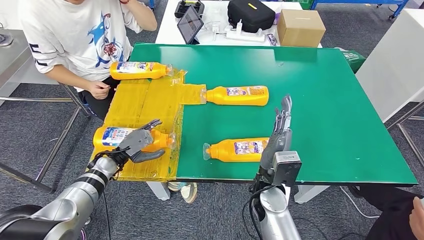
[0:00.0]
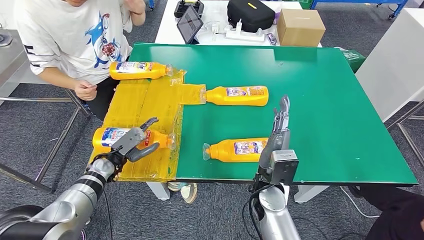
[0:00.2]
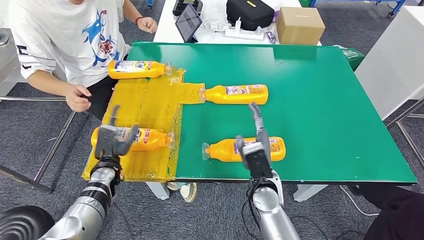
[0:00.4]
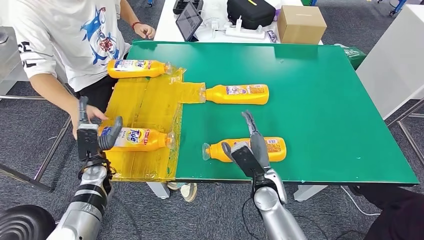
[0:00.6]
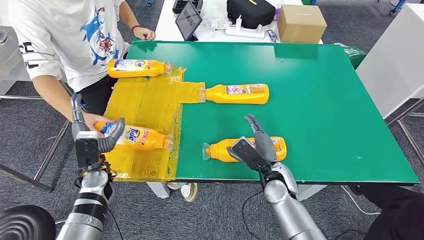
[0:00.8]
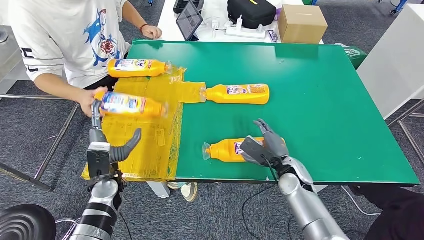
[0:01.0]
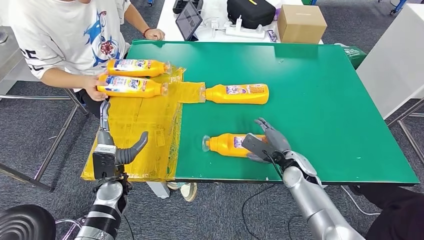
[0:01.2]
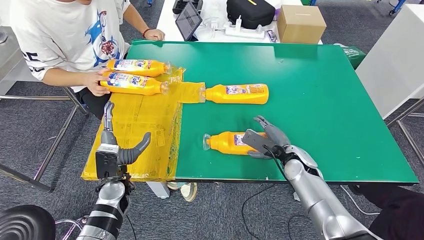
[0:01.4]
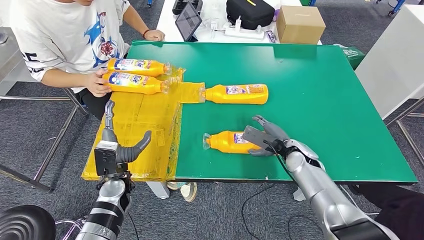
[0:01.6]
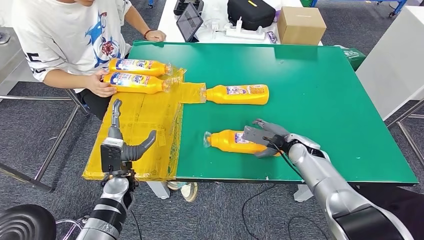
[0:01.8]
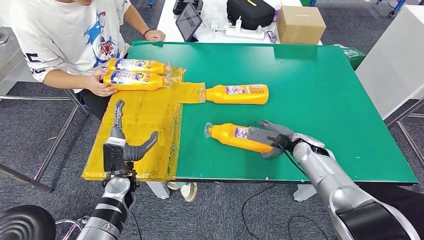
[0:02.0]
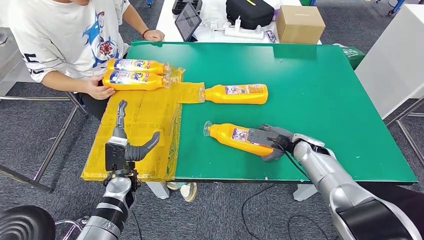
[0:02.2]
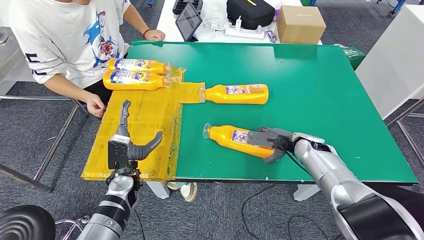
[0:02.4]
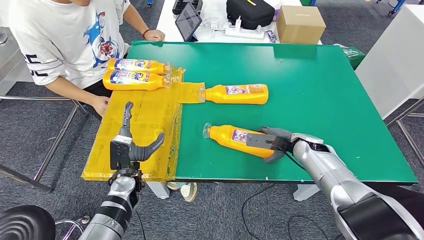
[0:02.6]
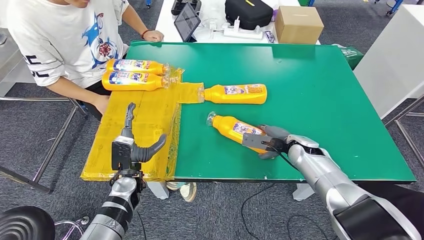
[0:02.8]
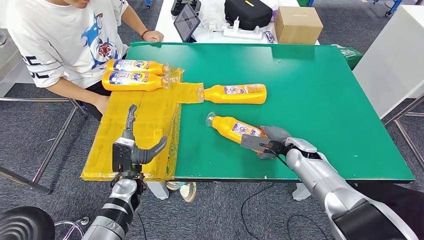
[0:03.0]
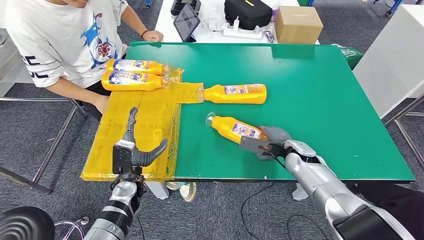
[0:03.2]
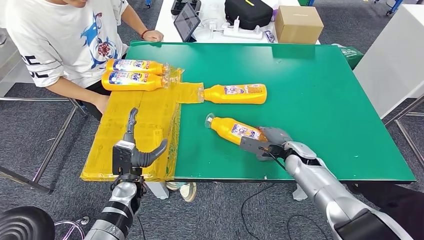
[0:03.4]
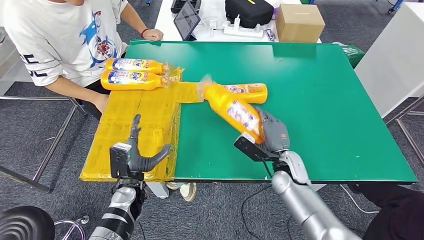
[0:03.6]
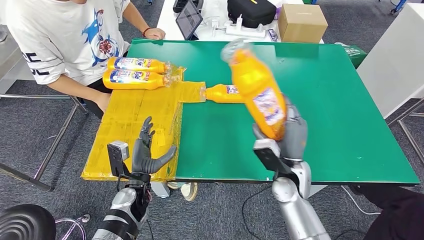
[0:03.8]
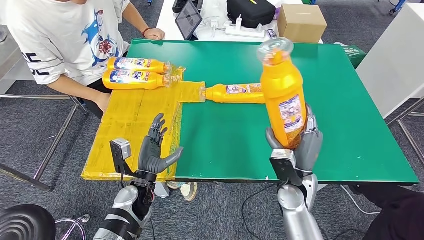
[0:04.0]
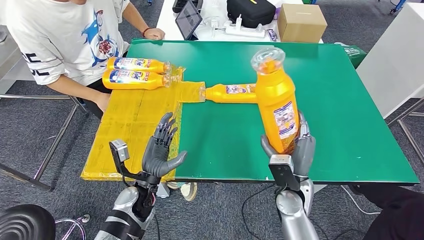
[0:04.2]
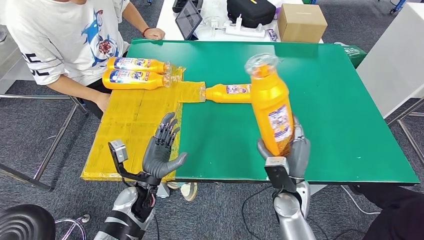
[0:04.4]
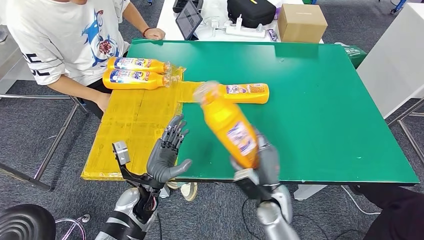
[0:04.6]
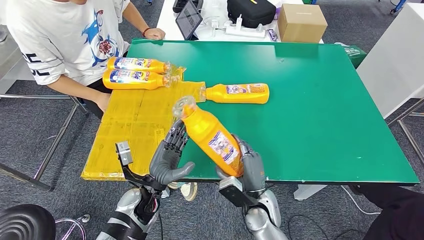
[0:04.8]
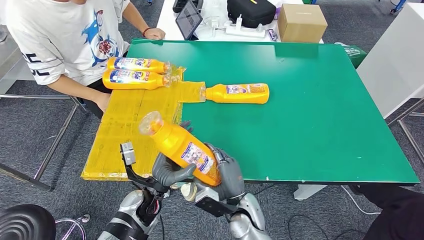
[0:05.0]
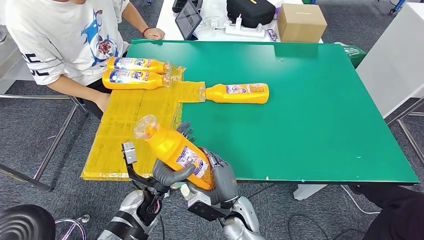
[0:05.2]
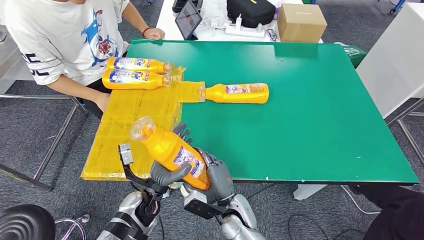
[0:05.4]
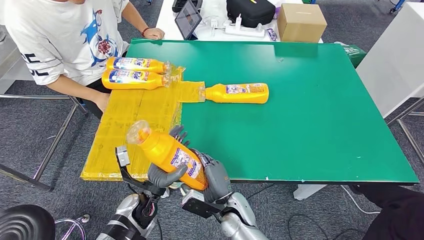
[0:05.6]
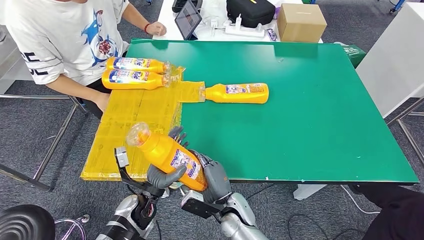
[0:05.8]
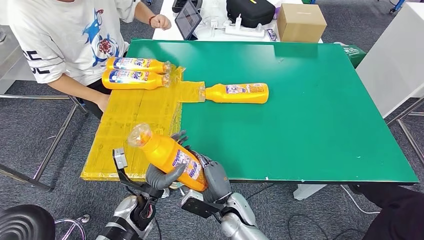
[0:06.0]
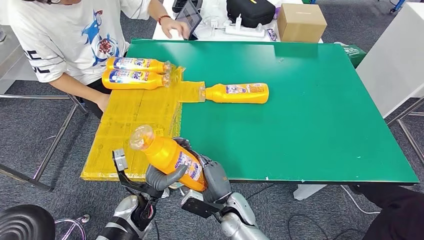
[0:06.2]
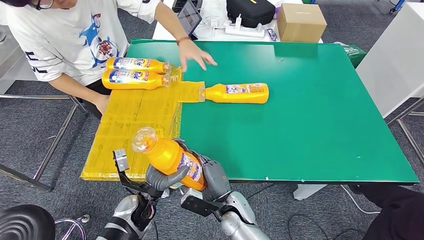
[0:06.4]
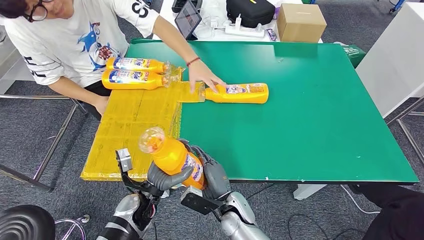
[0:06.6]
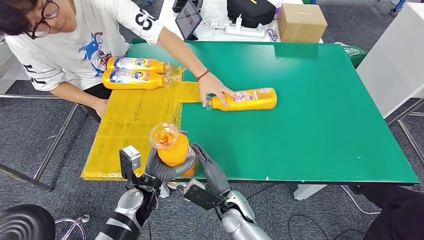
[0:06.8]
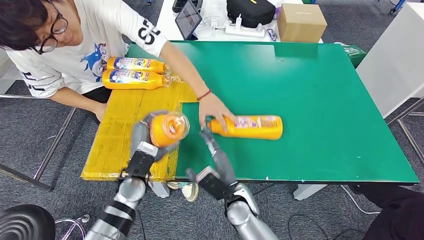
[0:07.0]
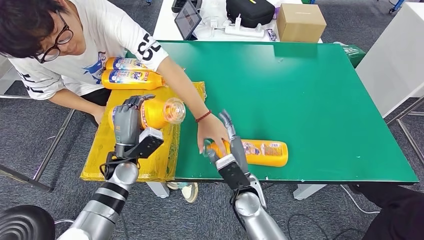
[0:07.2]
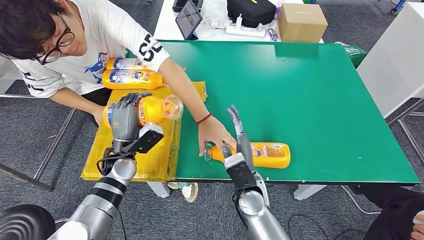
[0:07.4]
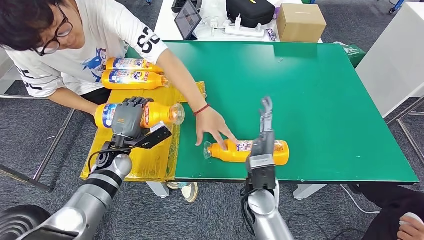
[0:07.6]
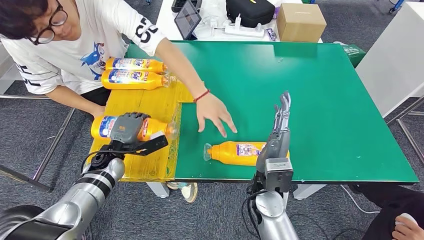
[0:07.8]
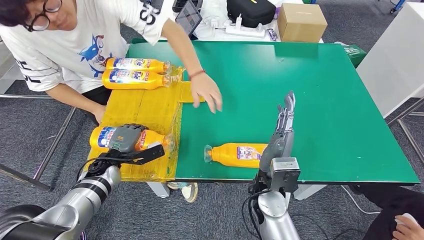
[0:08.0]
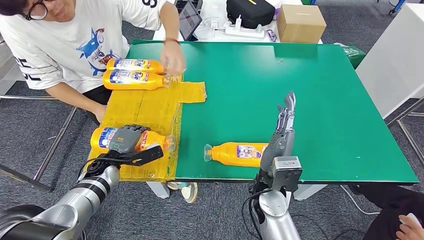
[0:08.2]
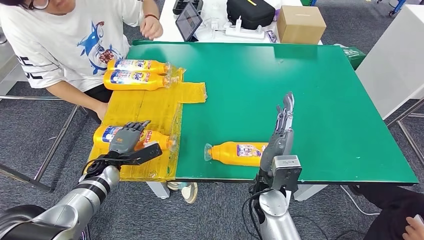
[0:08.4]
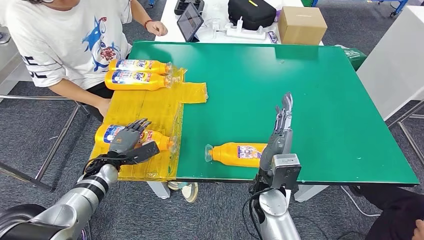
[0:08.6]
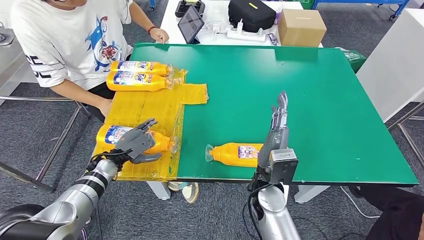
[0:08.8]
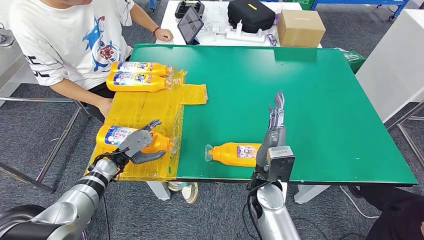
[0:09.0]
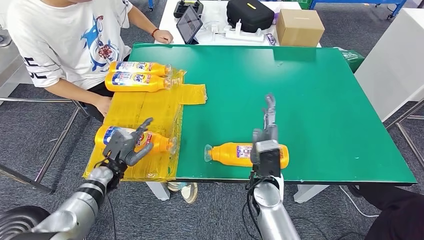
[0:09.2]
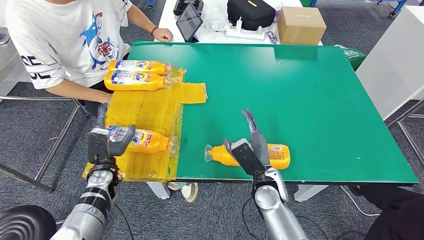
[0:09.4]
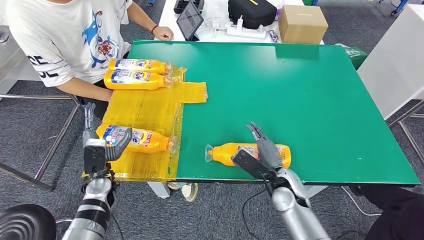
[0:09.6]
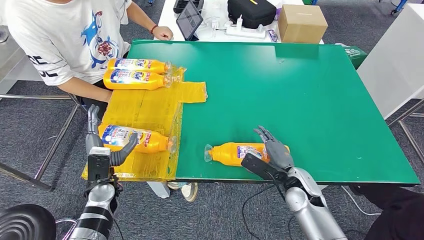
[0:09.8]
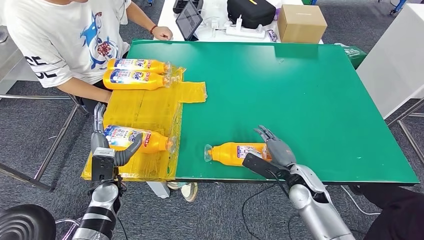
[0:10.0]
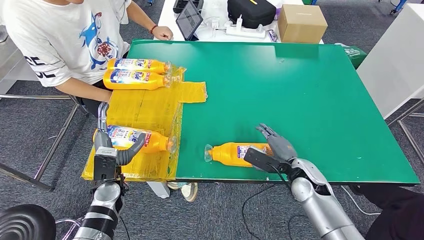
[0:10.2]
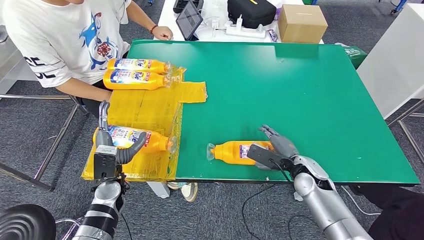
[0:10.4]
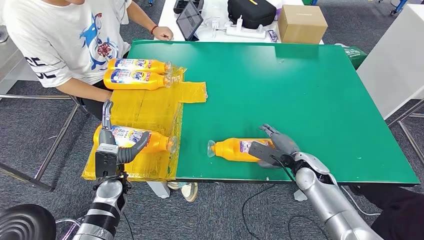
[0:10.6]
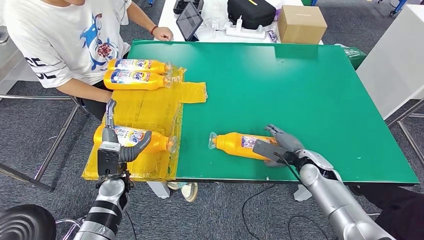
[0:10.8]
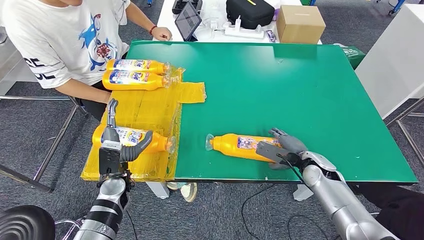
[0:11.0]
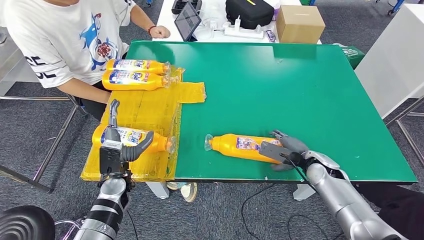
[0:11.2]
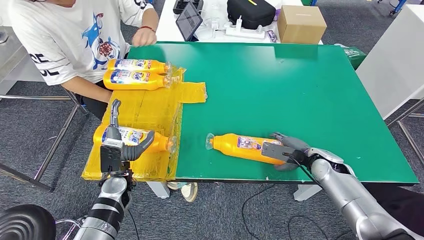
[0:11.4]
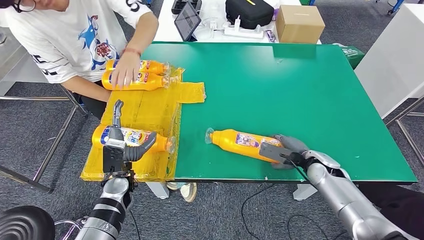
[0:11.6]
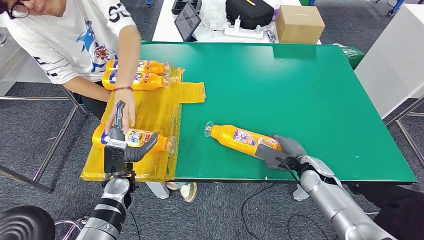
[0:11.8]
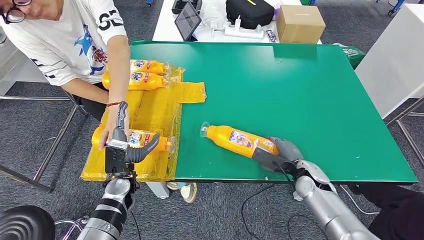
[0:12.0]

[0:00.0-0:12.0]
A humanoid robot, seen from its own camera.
Step, 0:00.4 to 0:05.8: Pick up the bottle from the table.
Step, 0:06.2 to 0:09.8: Flip the bottle to face forward.
0:04.4 to 0:06.0: The right hand travels to the left and downward by approximately 15 cm.

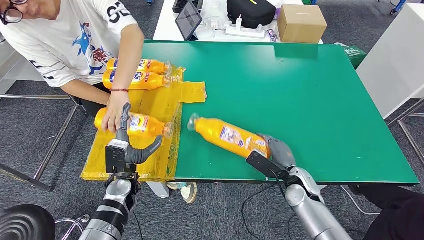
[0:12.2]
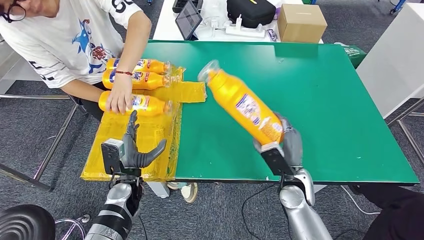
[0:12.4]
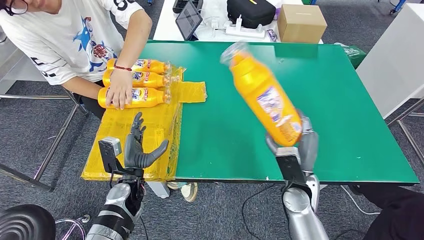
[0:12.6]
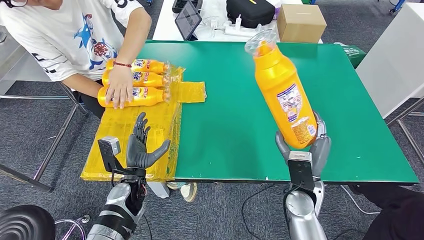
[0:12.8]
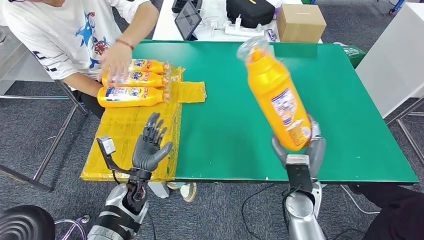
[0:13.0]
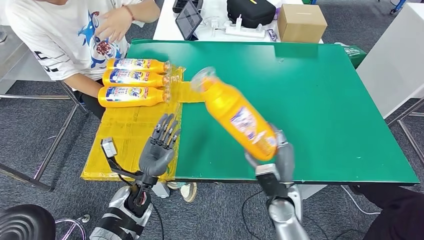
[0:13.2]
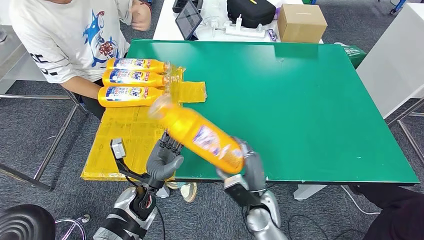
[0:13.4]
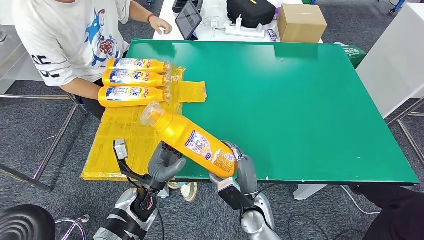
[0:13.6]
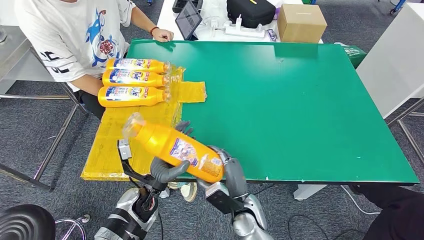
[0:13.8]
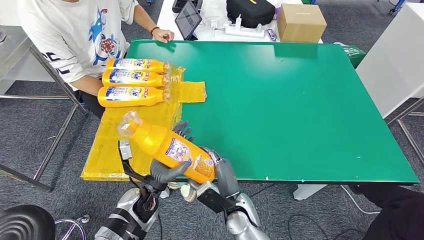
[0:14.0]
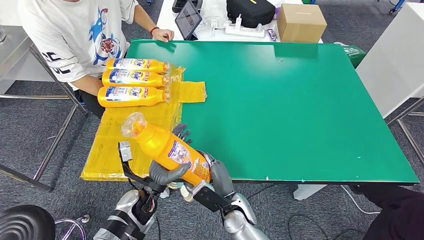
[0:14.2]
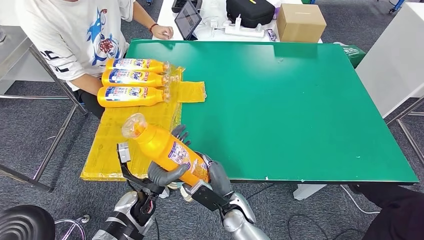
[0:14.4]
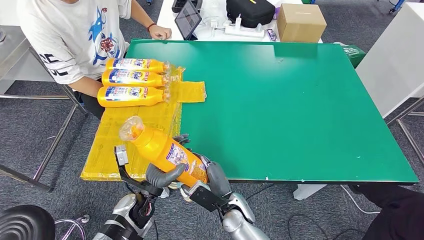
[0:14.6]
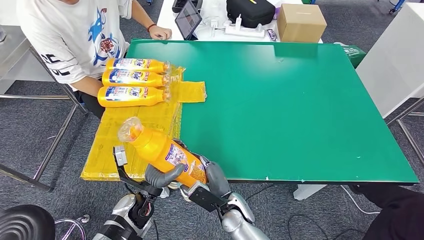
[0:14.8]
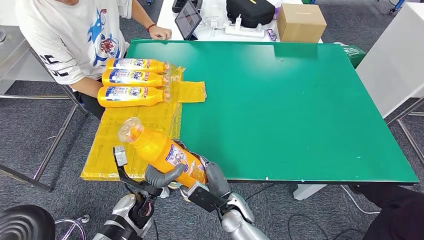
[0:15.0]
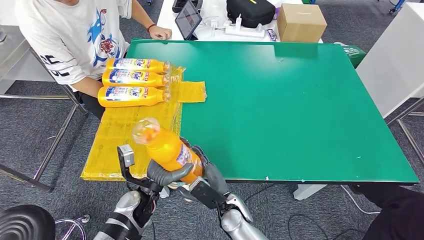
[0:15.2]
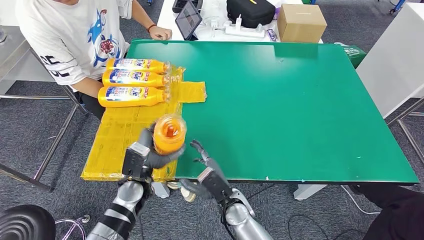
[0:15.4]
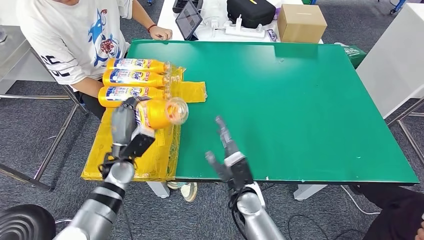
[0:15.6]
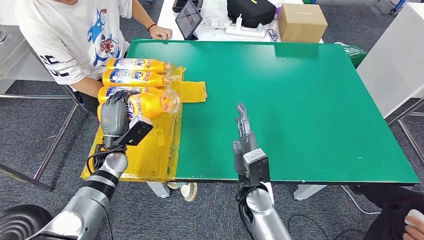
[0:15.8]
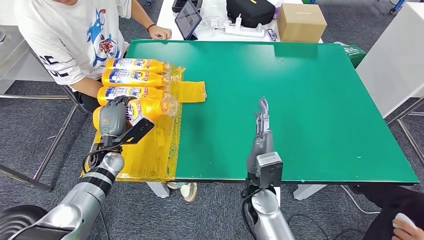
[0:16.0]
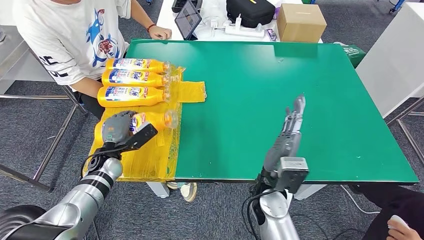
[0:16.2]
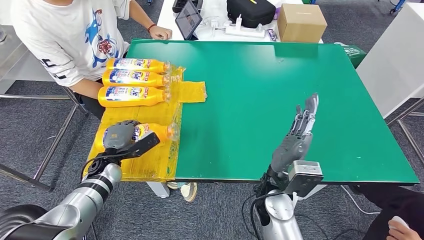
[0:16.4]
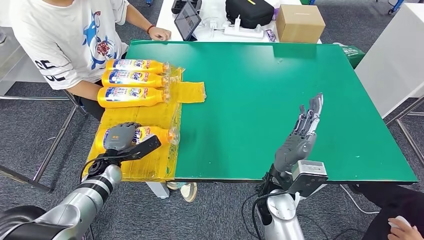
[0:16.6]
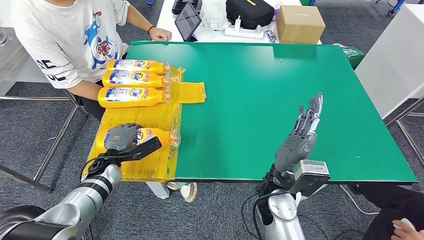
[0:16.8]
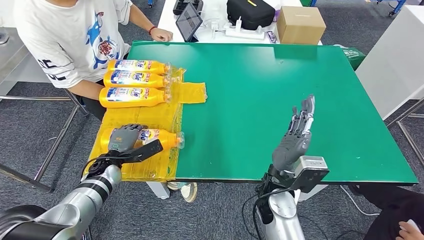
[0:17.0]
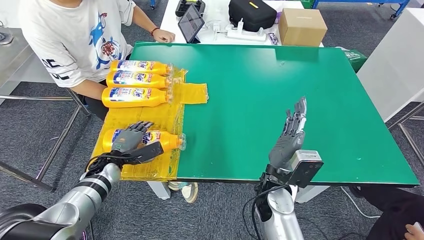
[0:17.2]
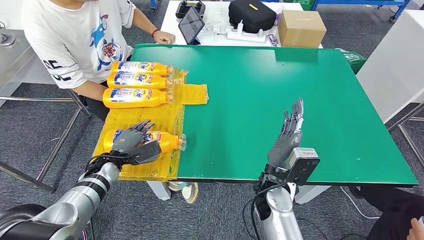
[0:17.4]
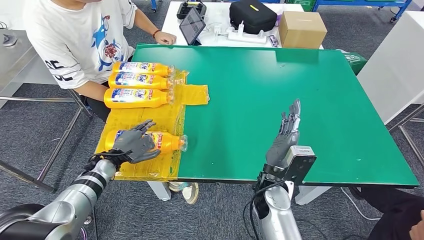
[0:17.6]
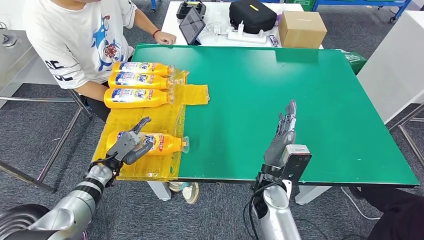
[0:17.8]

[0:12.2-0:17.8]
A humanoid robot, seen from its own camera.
Step, 0:12.2 to 0:15.0: Pick up the bottle from the table.
Step, 0:15.2 to 0:17.8: Flip the bottle to face forward.
0:13.6 to 0:15.0: The right hand travels to the left by roughly 5 cm.
0:15.0 to 0:16.4: The right hand is displaced upward and to the right by about 15 cm; the left hand moves to the left and forward, some 15 cm.
